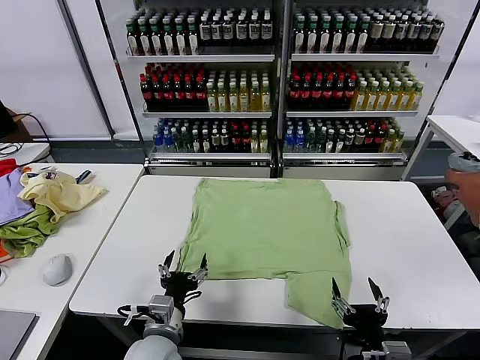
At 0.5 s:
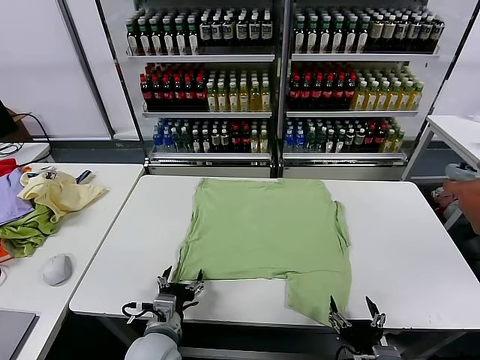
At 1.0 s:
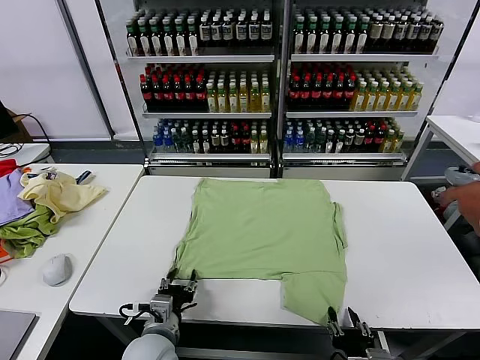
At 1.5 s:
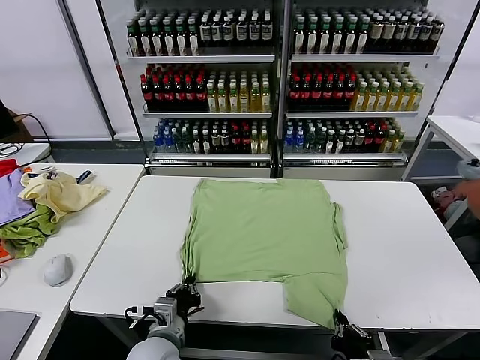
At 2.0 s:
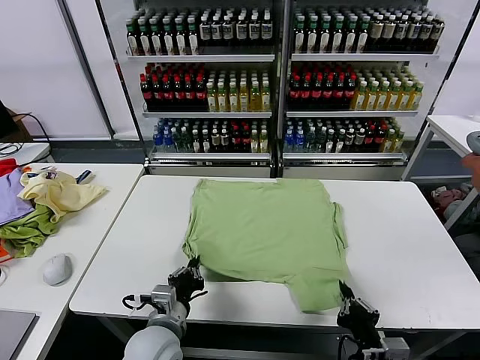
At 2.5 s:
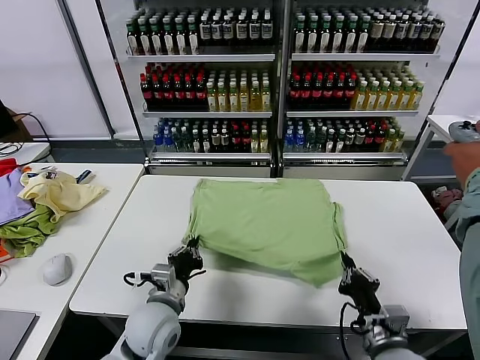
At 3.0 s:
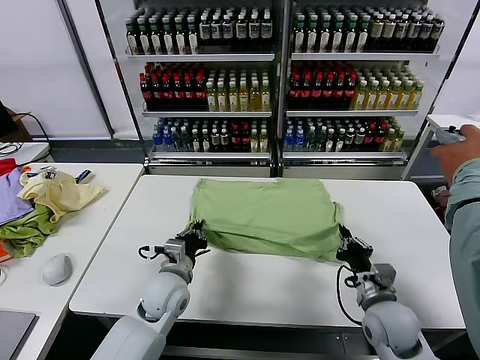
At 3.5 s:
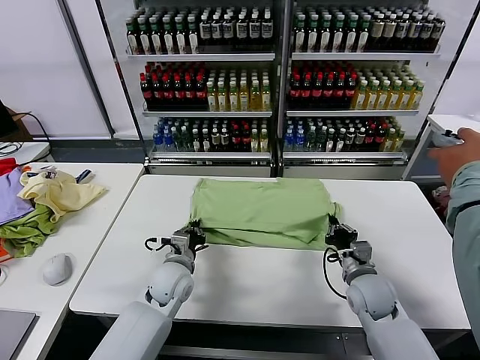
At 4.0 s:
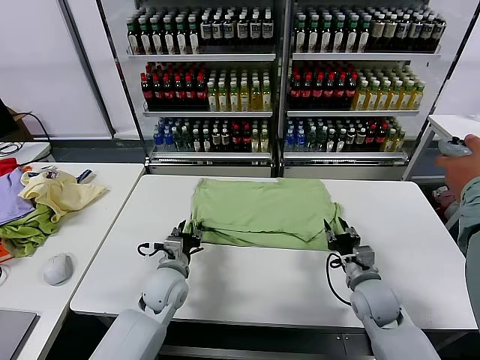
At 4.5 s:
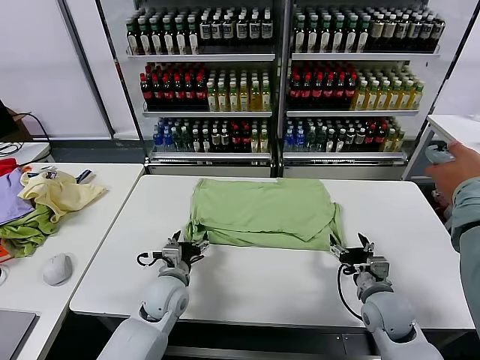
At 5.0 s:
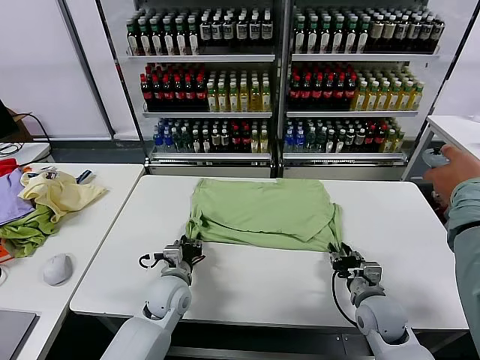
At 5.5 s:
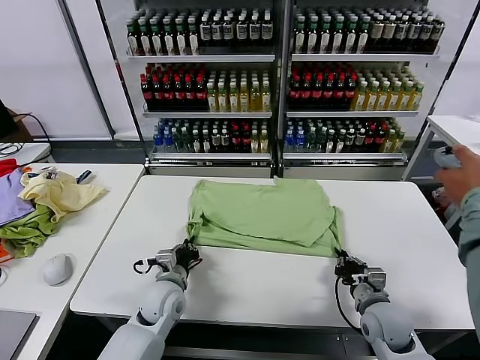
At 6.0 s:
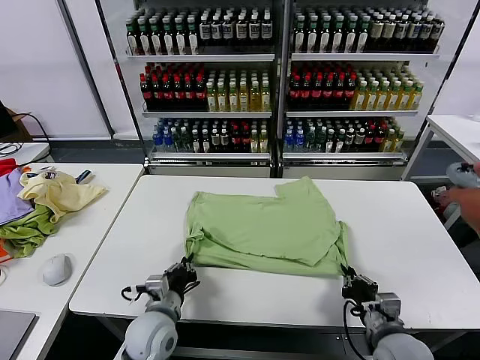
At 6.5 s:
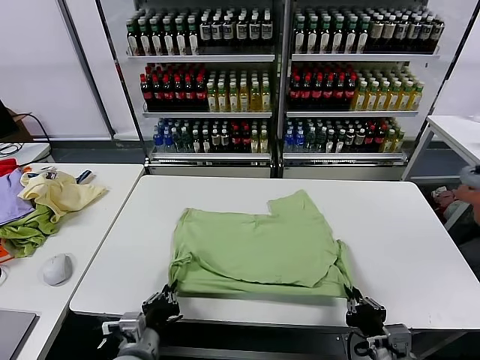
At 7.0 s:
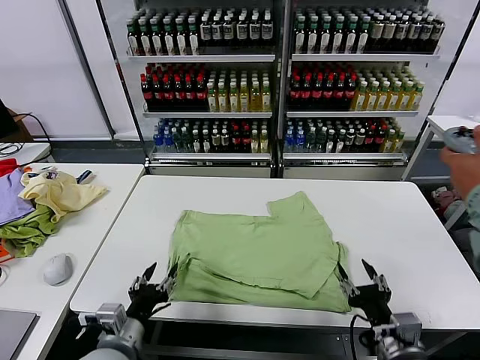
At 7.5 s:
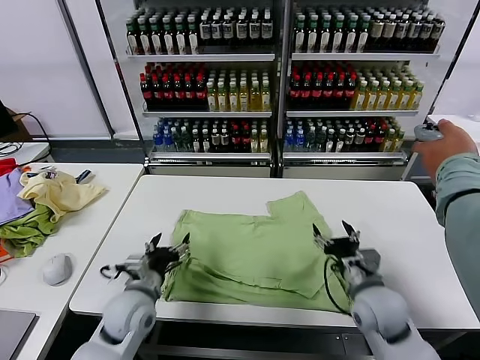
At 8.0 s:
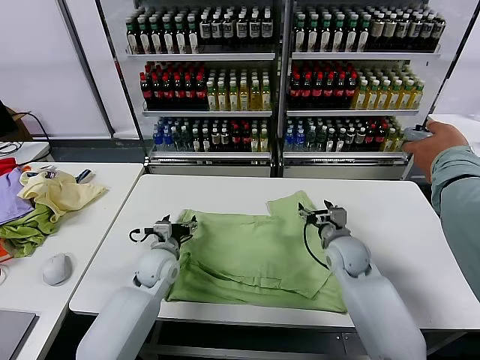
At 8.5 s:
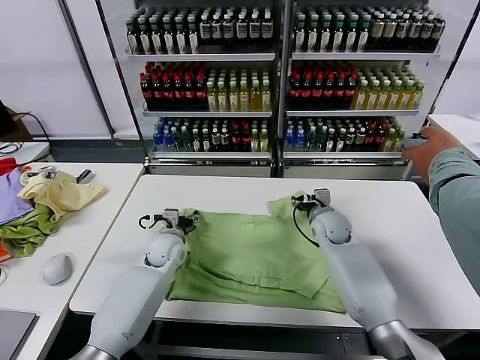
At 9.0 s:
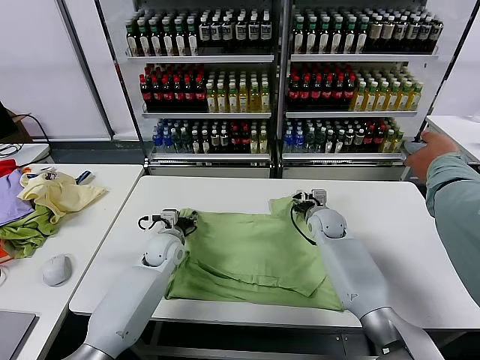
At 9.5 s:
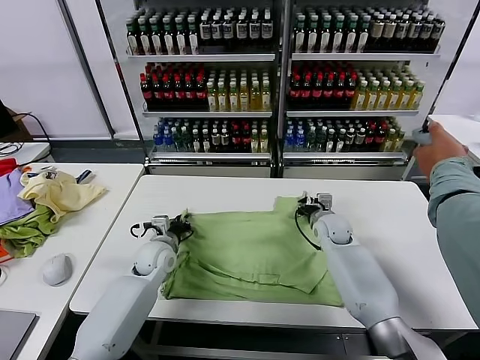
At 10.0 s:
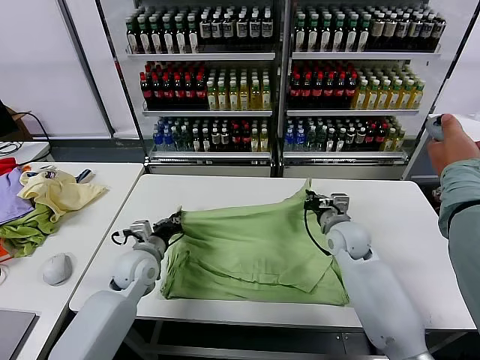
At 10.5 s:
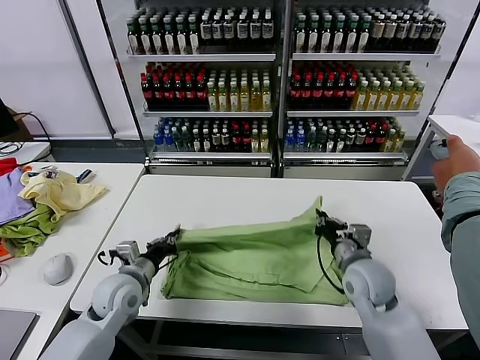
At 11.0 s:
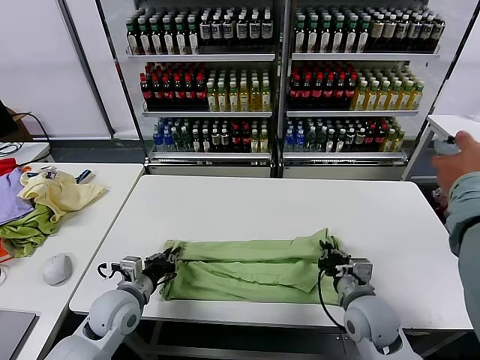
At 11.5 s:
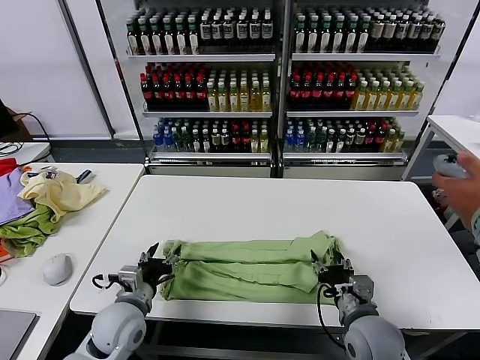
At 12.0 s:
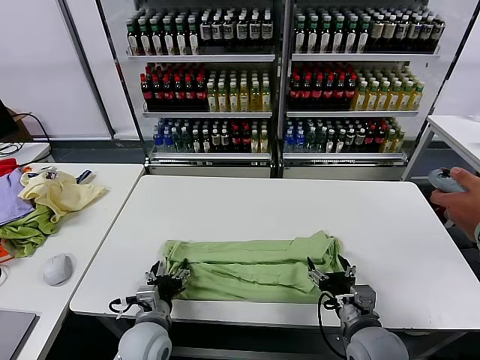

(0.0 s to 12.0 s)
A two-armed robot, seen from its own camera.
Task of the whole recording: fold and organize the clothes.
Step, 0.0 s - 1.5 s: use both grippers simultaneously to clamp the lower edge of the clothing fabric.
Step, 2.0 s - 3.5 s: use both grippers to drag the lower edge of the fabric forward and fold it over the upper edge.
Step, 4.0 s - 6.5 s: Drag the clothes downward with both gripper.
Step, 7.0 s - 9.5 s: use both grippers simultaneously to clamp the upper edge of the clothing fabric.
Step, 10.0 s - 11.0 s: use both grippers to drag the upper edge of the fabric backward and fold it over the lower edge.
2.0 s - 4.0 s: Both grippers move forward, roughly 15 cm. The left gripper opens its fingers, while the right gripper opens its fingers.
4.0 s - 6.0 s: The grippers both shift backward by about 10 cm. The right gripper closes; the left gripper closes its fingers.
6.0 s - 8.0 s: The grippers both shift forward by about 20 cm. The right gripper opens its fingers. The left gripper opens its fingers.
8.0 s - 10.0 s: The left gripper ends up about 5 cm from where it was, and closes, while the right gripper travels forward and back again, roughly 10 cm each way, and closes.
10.0 s - 12.0 s: The two grippers go about 20 cm backward. The left gripper opens its fingers. The right gripper opens.

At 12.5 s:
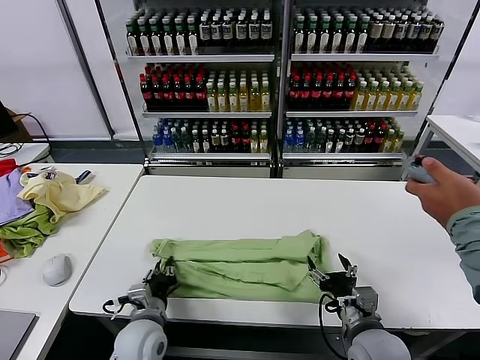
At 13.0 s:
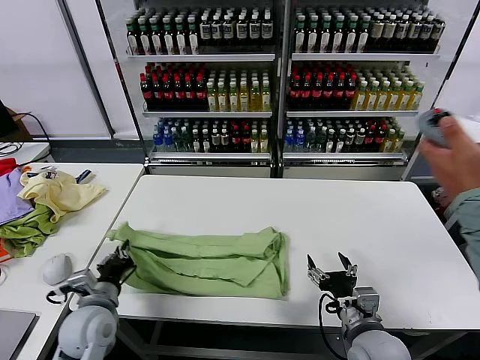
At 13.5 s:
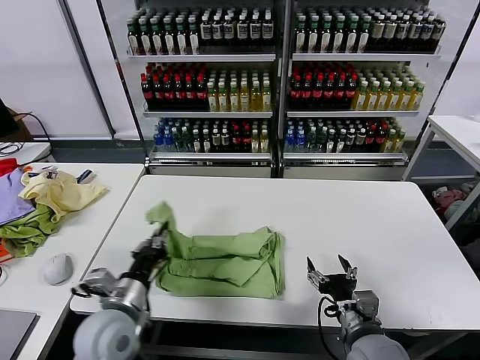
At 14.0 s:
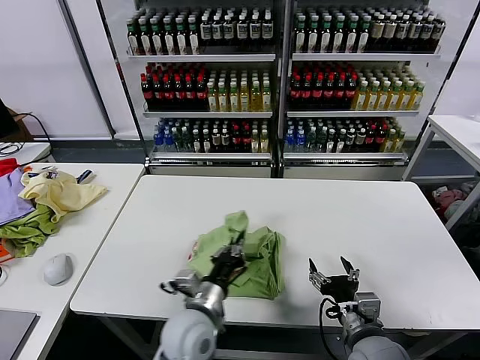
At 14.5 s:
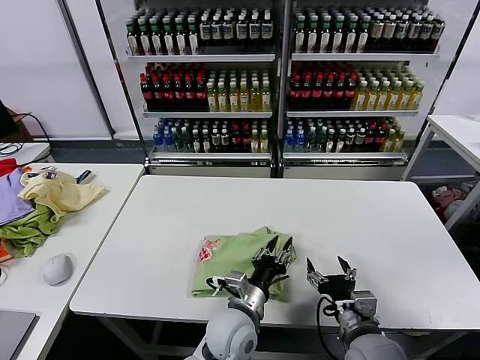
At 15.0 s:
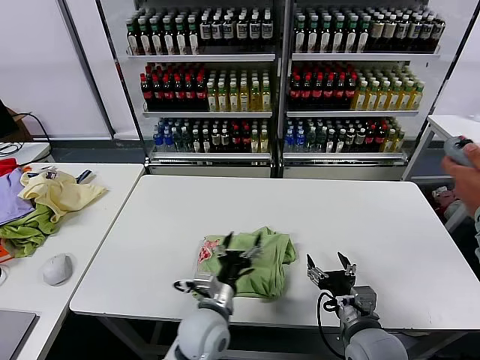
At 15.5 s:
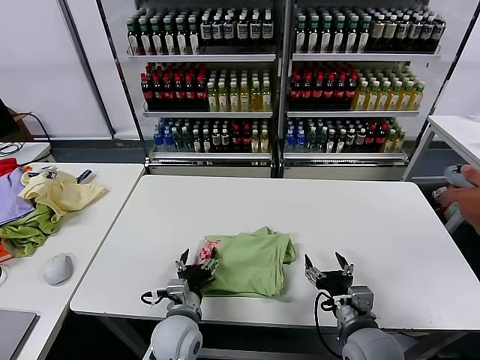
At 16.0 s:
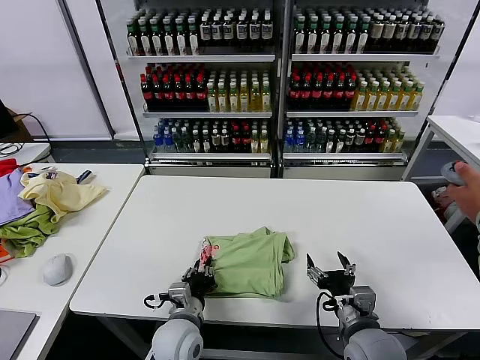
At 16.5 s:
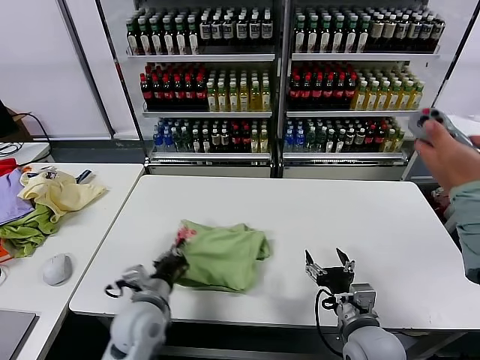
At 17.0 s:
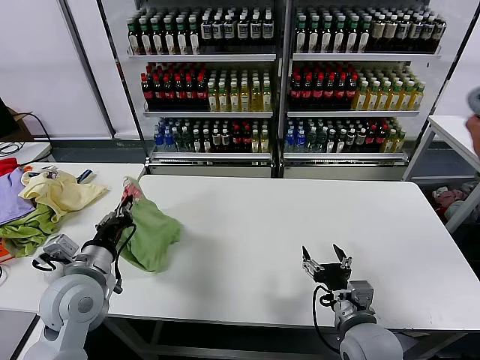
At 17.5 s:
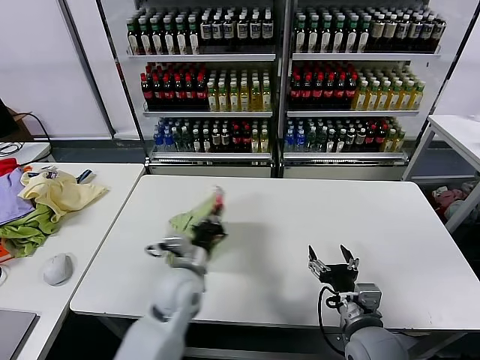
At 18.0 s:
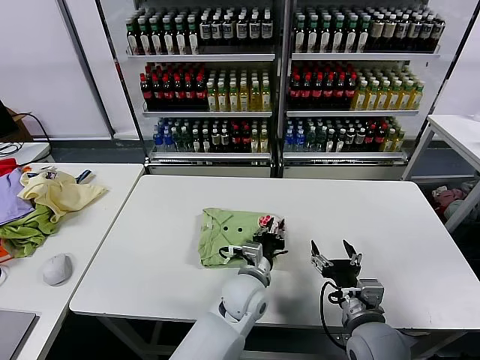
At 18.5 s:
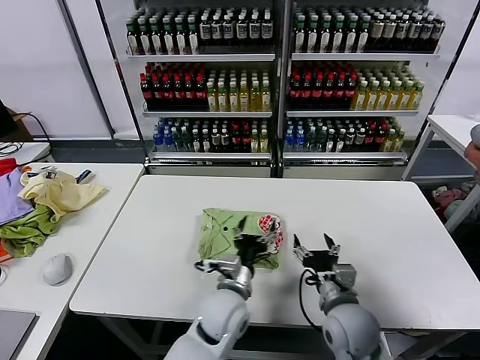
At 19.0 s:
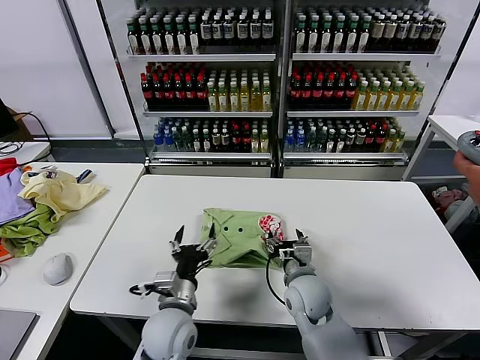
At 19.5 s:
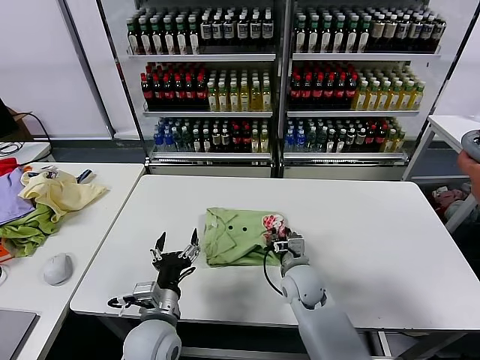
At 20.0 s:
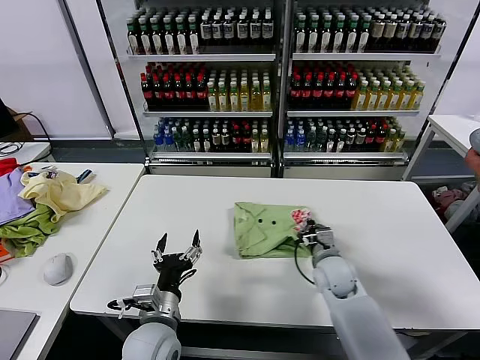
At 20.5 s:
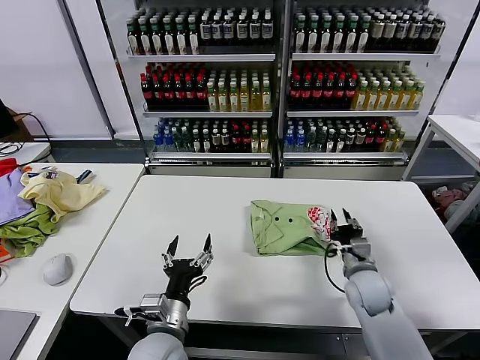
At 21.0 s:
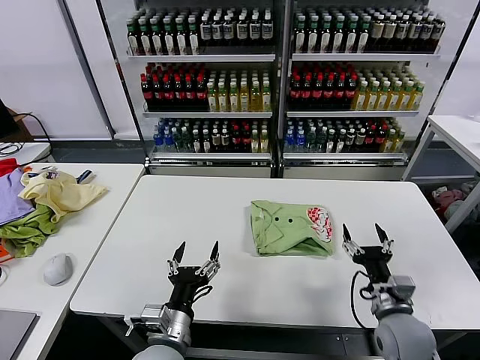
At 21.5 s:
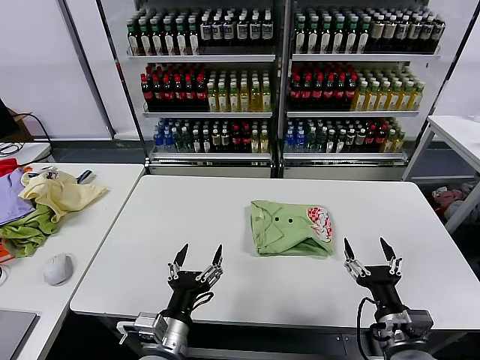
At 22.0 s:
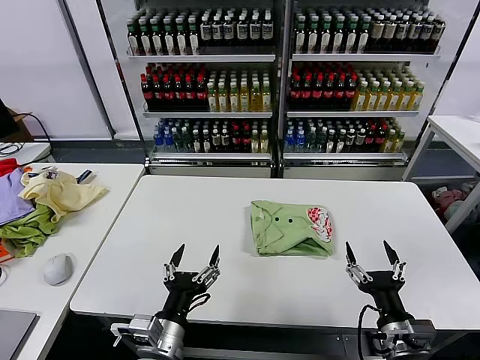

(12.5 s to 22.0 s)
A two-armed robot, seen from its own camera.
Task of the whole recording: fold and organize the clothes.
Step, 13.0 s - 14.5 s: use the left gripper to drag the left edge of the fabric to the left and folds it over the right edge.
Step, 15.0 s - 18.0 s: Flip the folded clothes over with left gripper.
Step, 18.5 s - 20.0 s: Drag the clothes to the center of the table.
12.5 s - 14.5 s: The left gripper travels to the right by some 20 cm.
14.5 s - 16.5 s: The left gripper shifts some 20 cm to the left, and closes its fingers.
16.5 s - 18.0 s: The left gripper heads to the right, covering some 20 cm.
18.0 s - 20.0 s: The left gripper heads to the left and backward, covering some 20 cm, and opens up. Meanwhile the right gripper moves forward, approximately 20 cm, and closes its fingers.
20.0 s - 22.0 s: The right gripper goes some 25 cm backward, and opens its fingers. The left gripper shifts roughly 5 cm backward.

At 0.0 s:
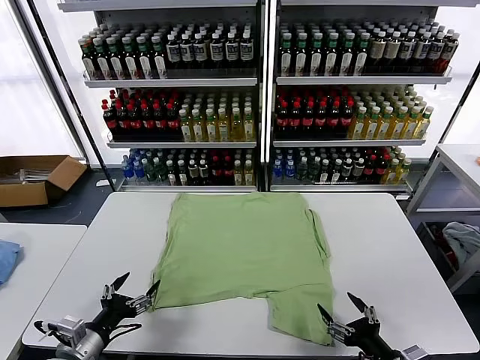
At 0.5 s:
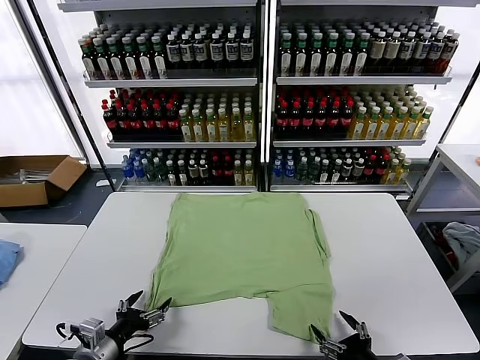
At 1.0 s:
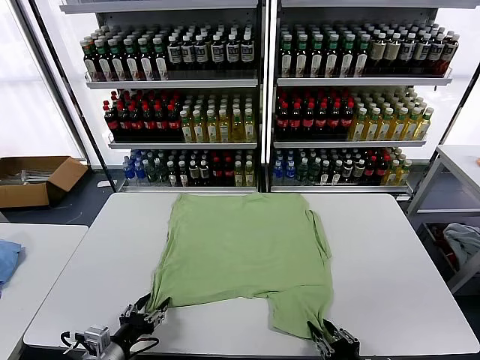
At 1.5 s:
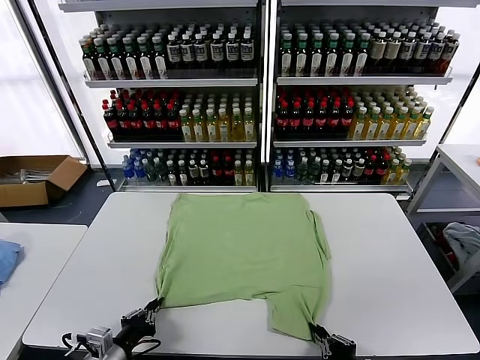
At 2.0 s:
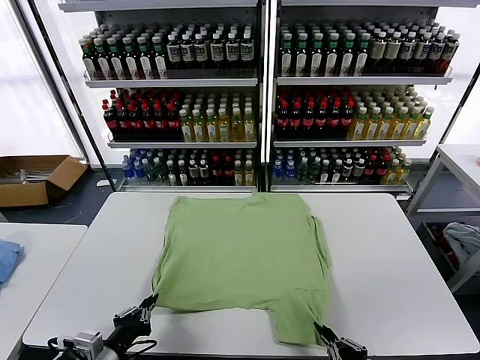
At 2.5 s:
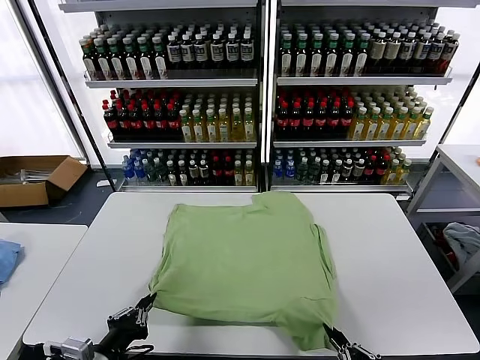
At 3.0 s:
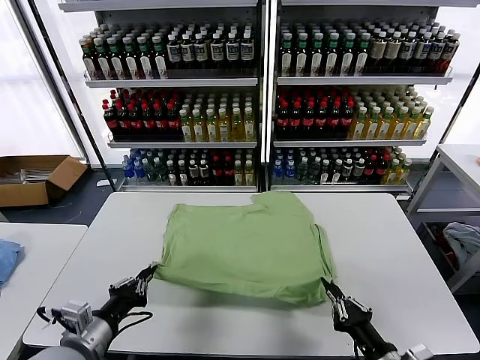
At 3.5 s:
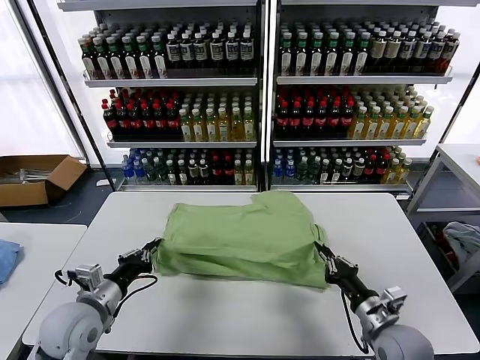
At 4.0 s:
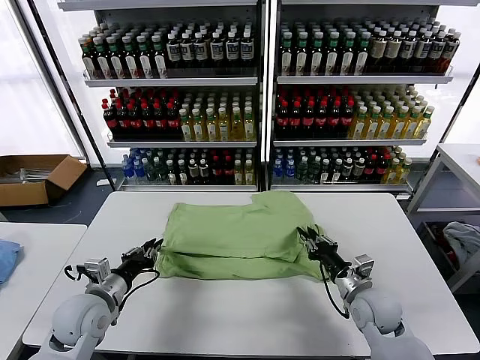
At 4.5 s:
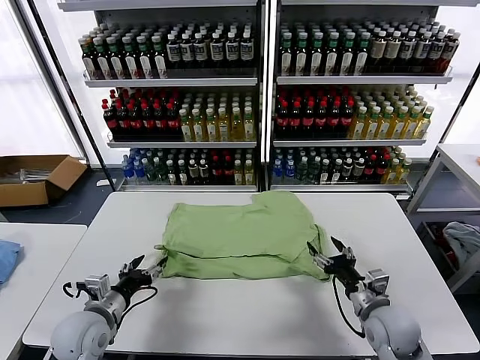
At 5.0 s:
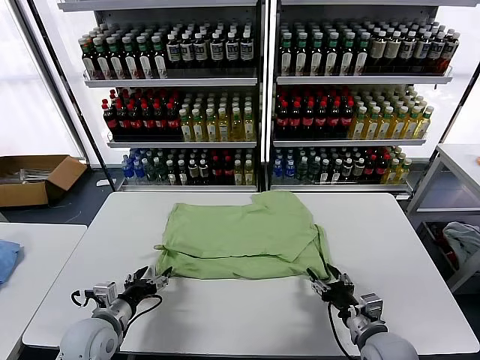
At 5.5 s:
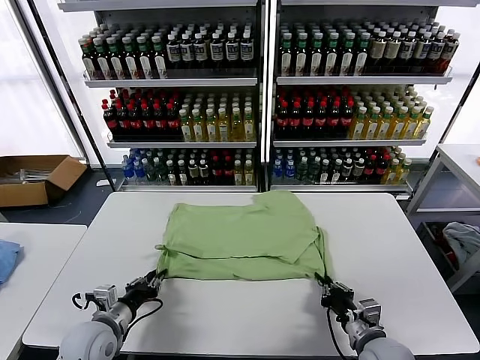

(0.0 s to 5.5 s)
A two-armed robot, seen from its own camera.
Task of the whole recording: fold and organize the clothes.
Step, 0.0 s - 1.0 s: use both grippers simultaneously to clamp the lower edge of the clothing fabric.
Step, 2.0 s - 4.0 s: use both grippers to drag the lower edge of the fabric forward and fold it over the upper edge.
2.0 s - 3.5 s: The left gripper moves forward, some 10 cm; the right gripper heads forward, covering some 20 cm.
3.5 s - 5.5 s: The right gripper changes place by about 5 cm, and opens, then closes again. Meanwhile the left gripper shifts about 5 cm downward, and opens and closes again.
